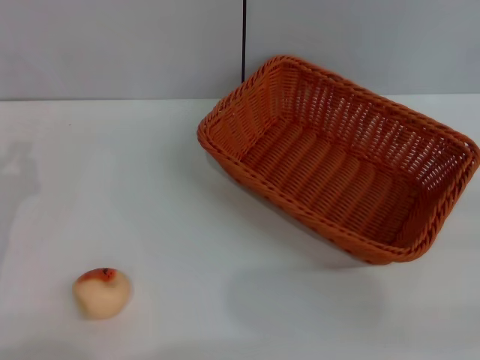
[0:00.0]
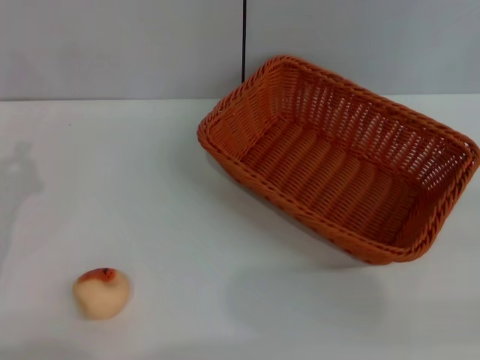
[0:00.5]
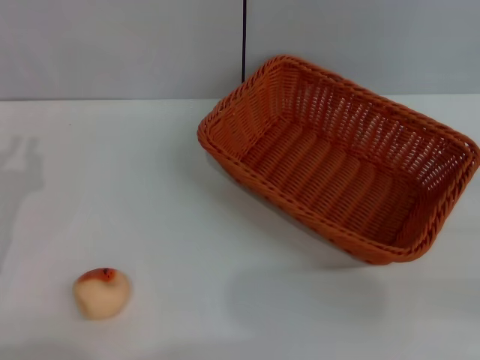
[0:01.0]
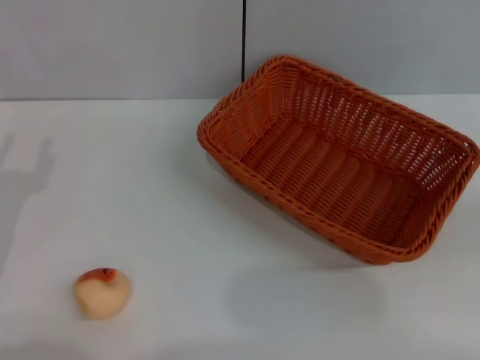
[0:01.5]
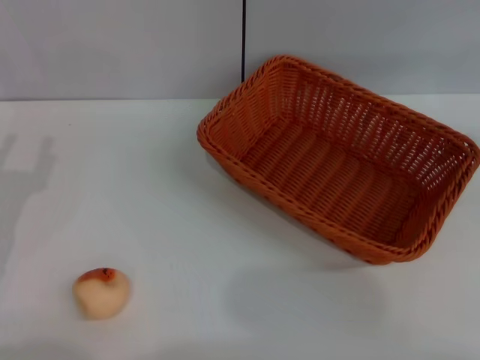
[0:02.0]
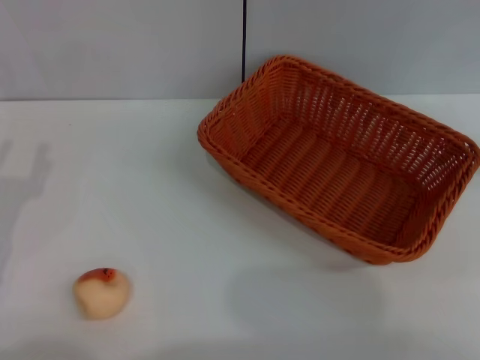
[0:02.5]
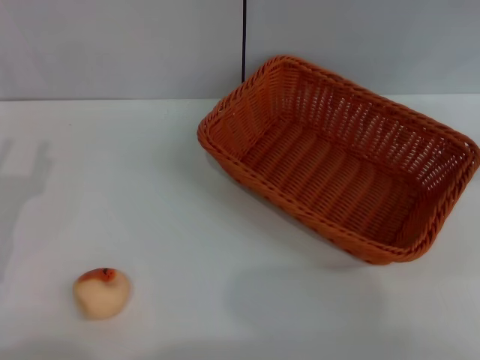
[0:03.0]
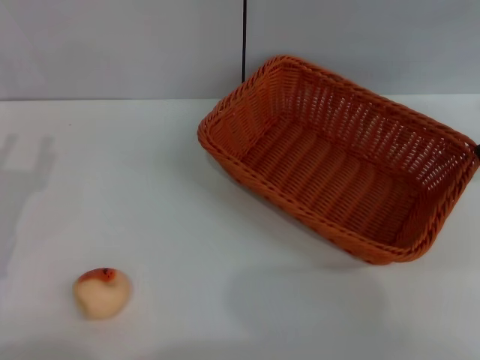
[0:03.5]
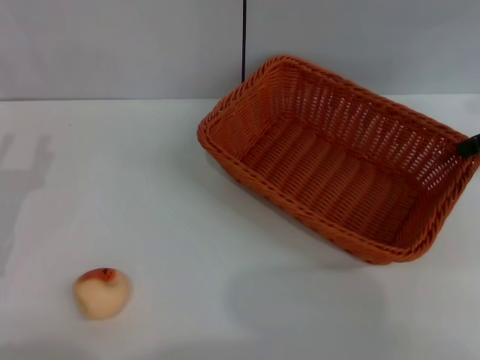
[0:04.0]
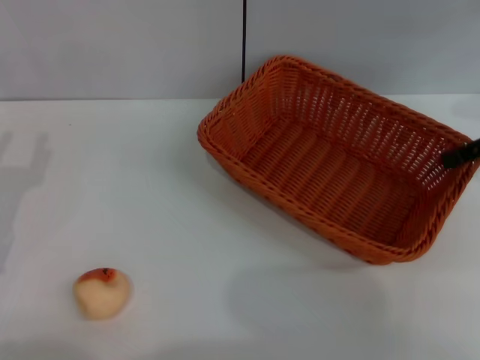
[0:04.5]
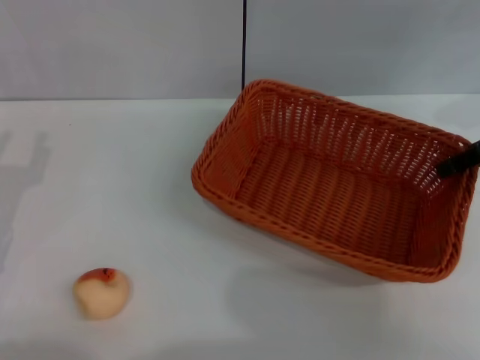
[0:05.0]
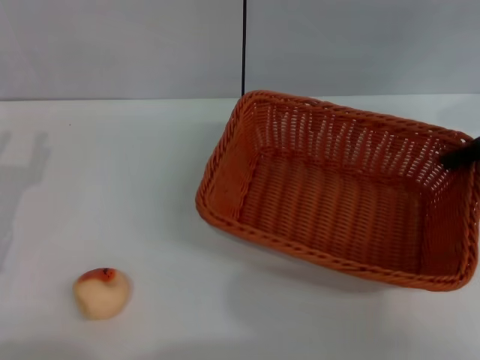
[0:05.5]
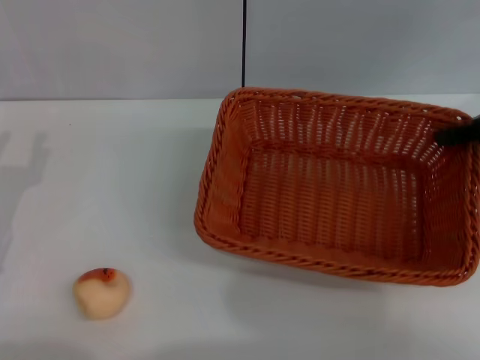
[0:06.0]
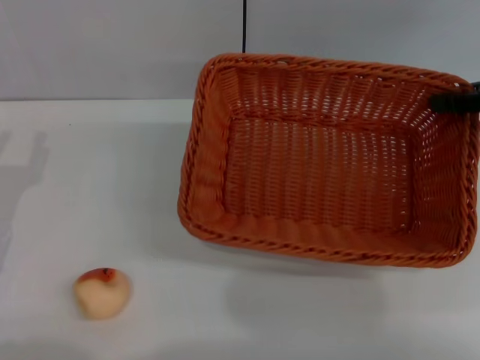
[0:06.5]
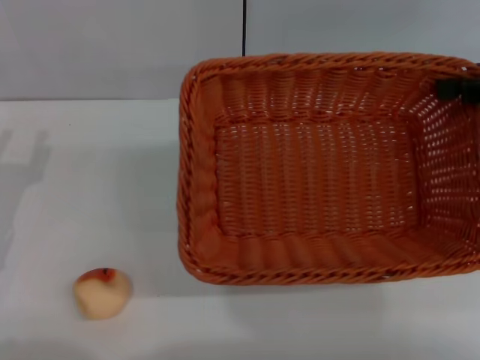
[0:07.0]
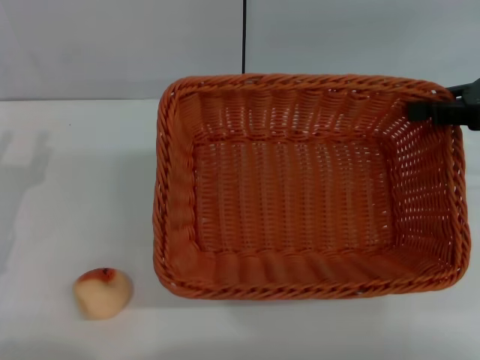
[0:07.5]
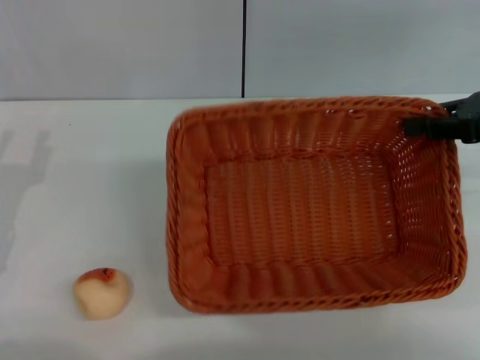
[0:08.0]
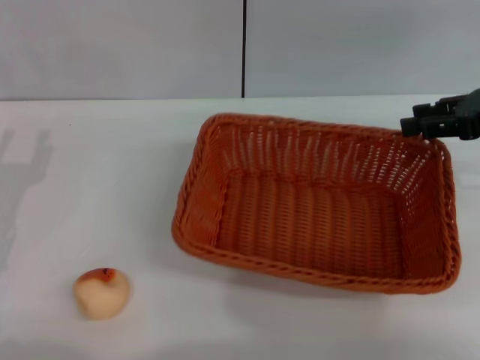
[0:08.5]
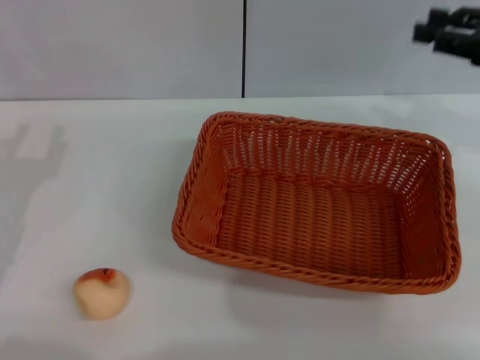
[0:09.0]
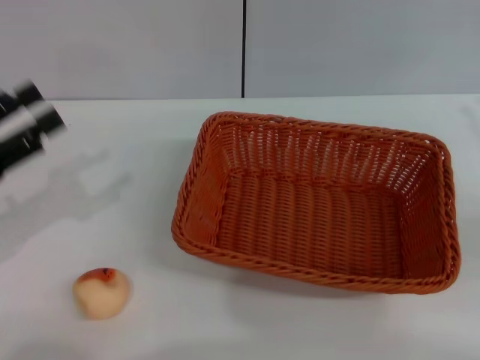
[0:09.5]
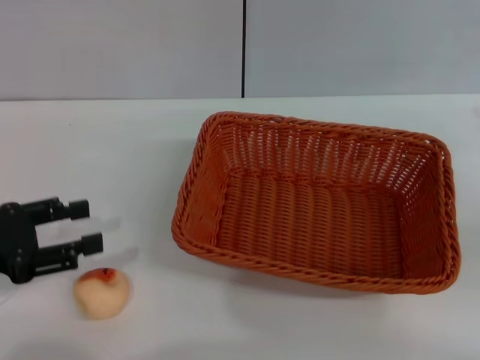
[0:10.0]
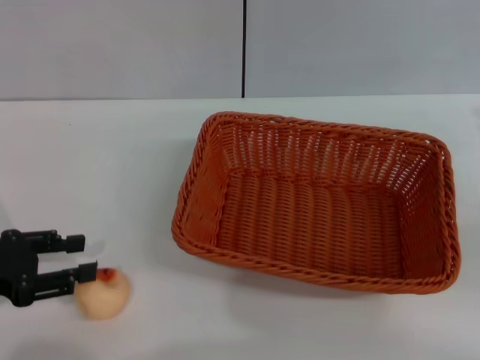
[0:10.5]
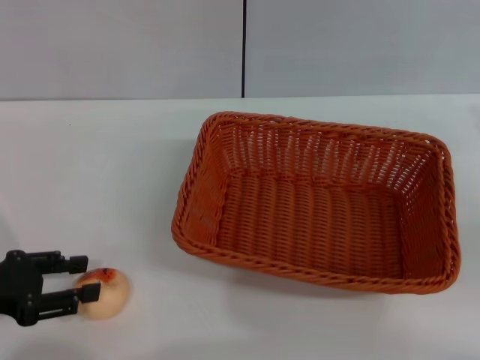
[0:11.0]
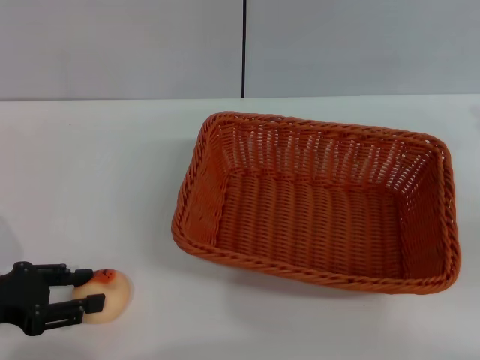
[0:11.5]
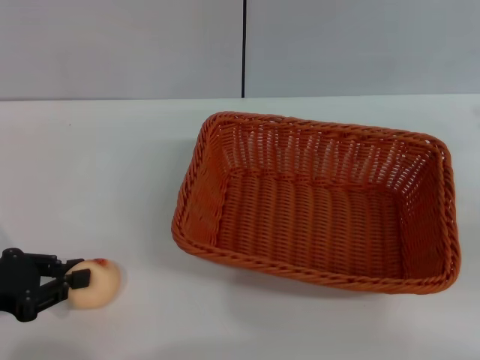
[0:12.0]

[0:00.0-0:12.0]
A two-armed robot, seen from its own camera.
Step, 0:00.0 to 0:08.5: Move the basket to the center of view with the right gripper.
0:04.0 to 0:06.0: The right gripper closes.
0:08.0 to 0:10.0: The right gripper heads backward, to the right and downward, covering approximately 10 cm, and opens. Meanwhile the left gripper ends up approximately 5 cm from where it was.
0:10.0 to 0:12.0: There are only small adjustments of the grippers.

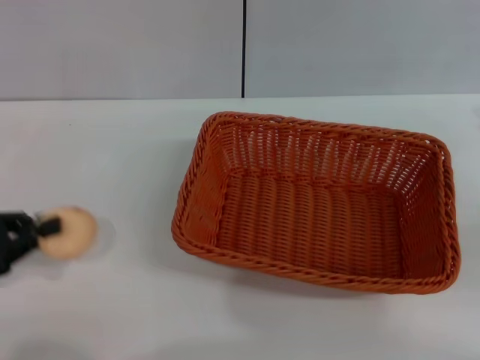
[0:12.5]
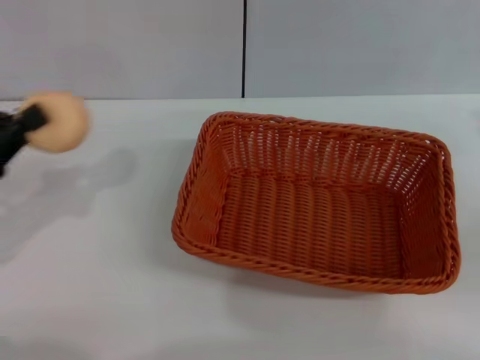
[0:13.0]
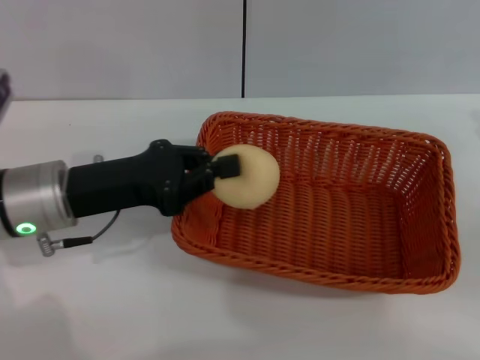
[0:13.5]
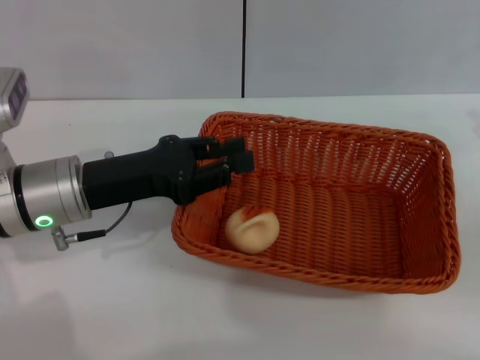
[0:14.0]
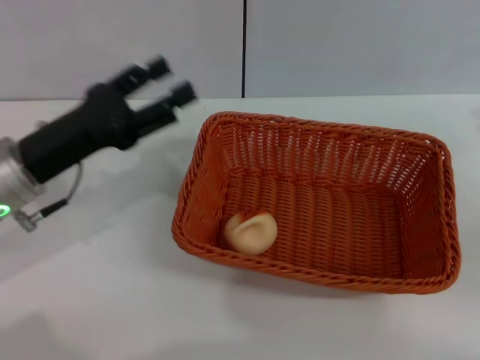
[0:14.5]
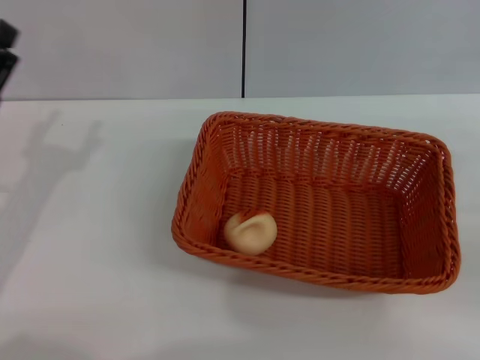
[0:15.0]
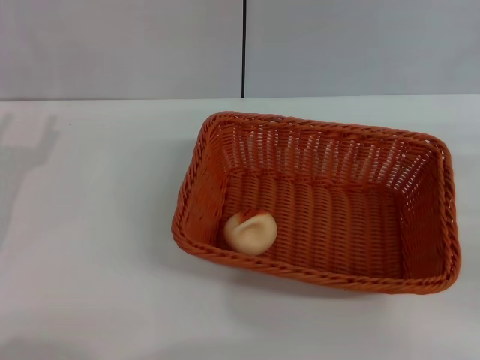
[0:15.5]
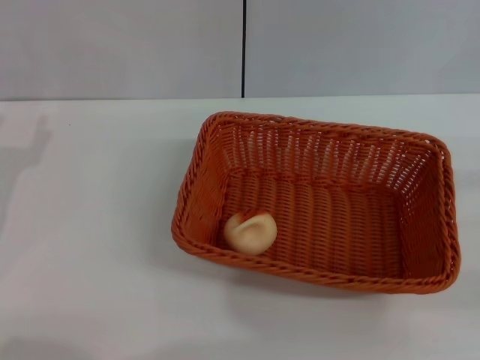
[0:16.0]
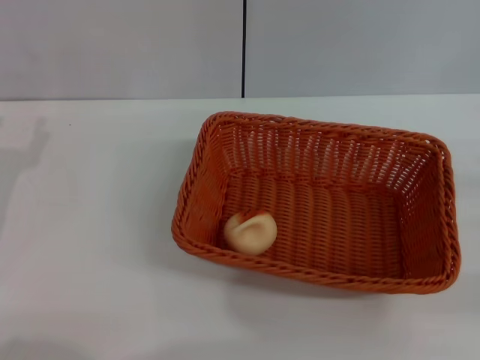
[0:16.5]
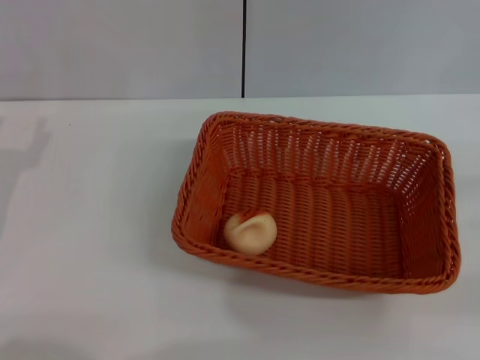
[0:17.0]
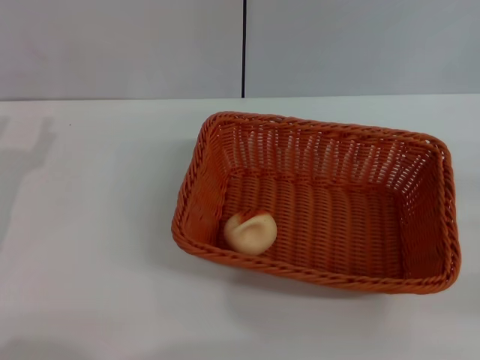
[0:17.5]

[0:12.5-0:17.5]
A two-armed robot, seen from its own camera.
Step, 0:12.5 to 0:14.5: Place the egg yolk pastry into the basket with the left gripper.
0:12.5 to 0:15.0: The left gripper travels to the right by roughly 5 cm, and opens.

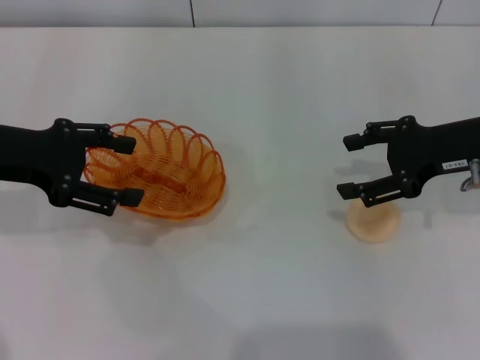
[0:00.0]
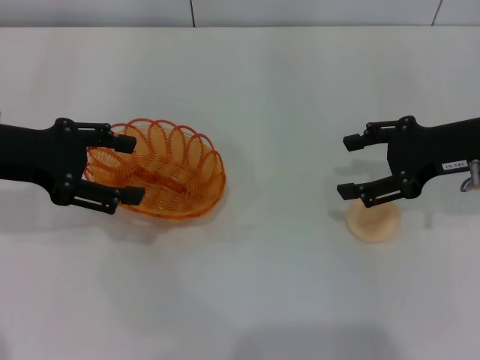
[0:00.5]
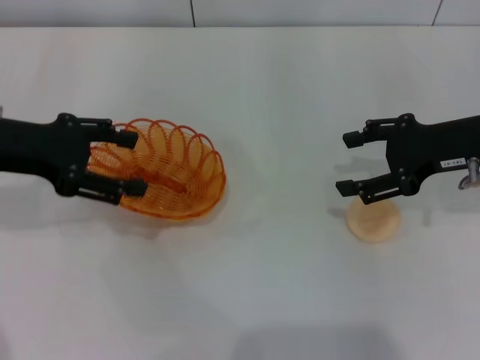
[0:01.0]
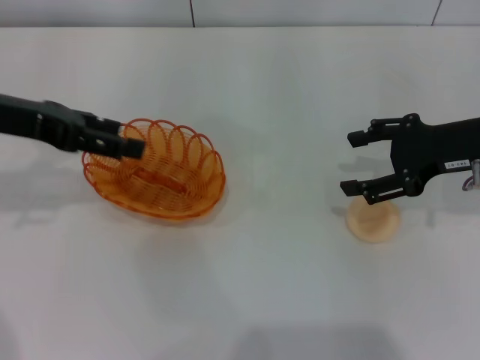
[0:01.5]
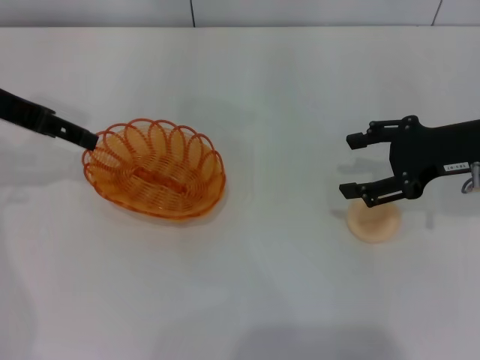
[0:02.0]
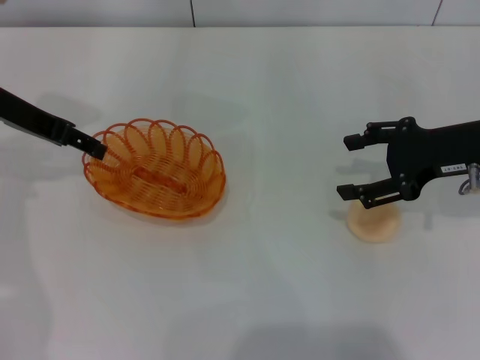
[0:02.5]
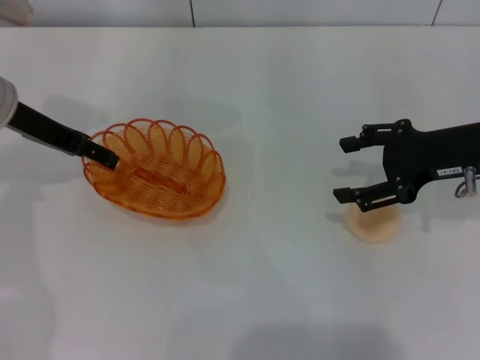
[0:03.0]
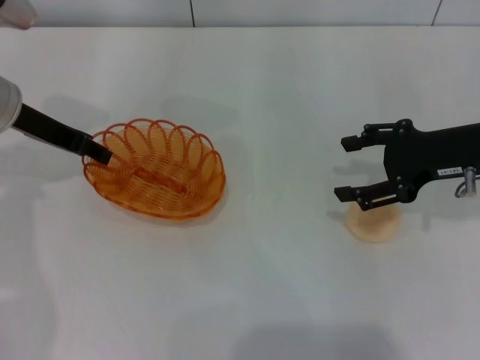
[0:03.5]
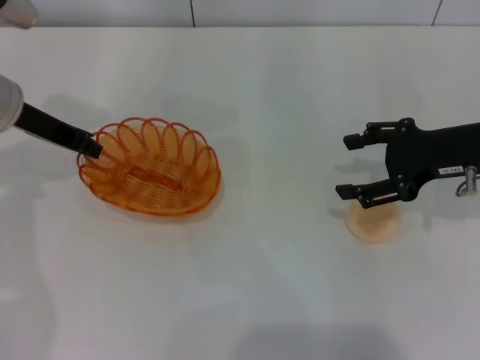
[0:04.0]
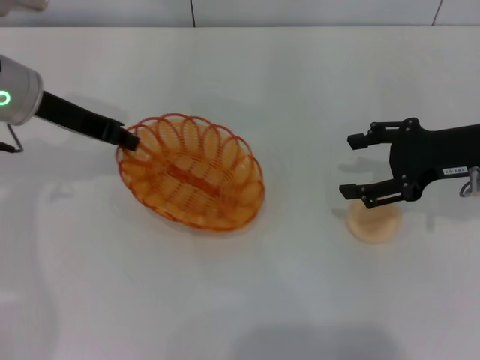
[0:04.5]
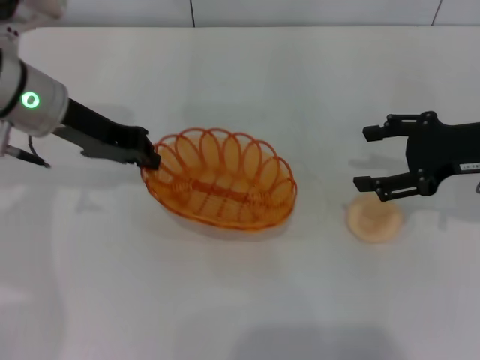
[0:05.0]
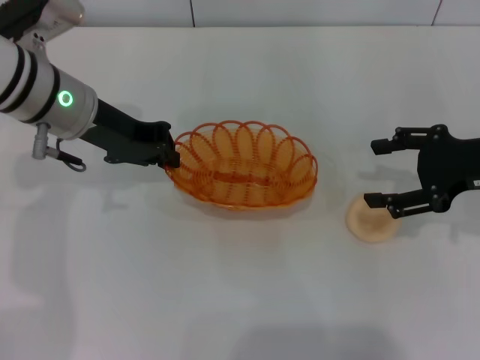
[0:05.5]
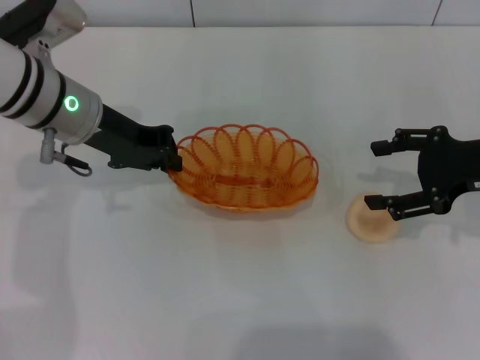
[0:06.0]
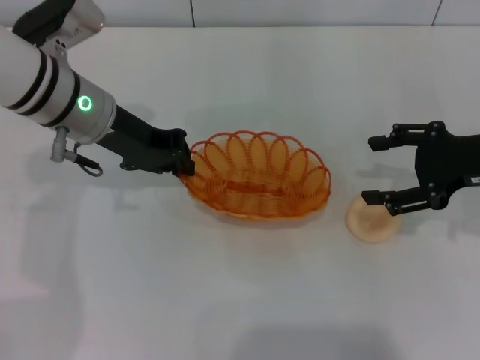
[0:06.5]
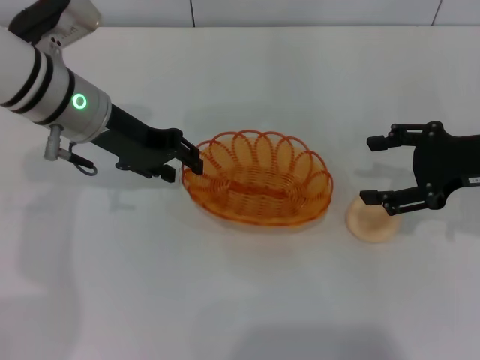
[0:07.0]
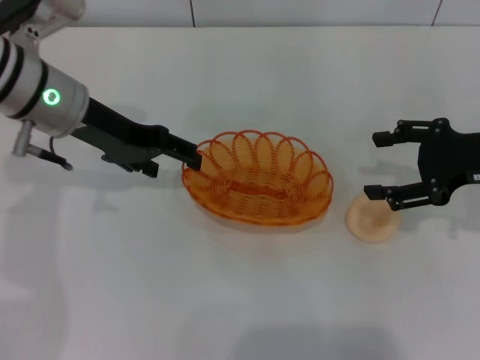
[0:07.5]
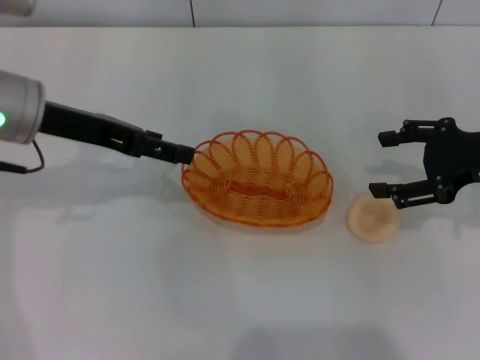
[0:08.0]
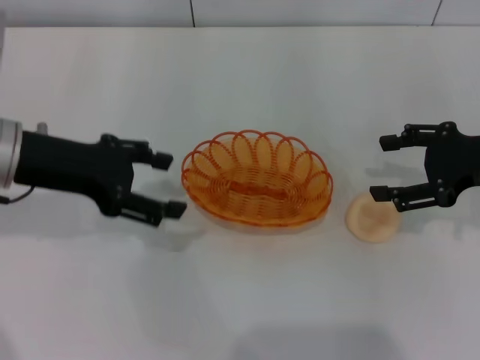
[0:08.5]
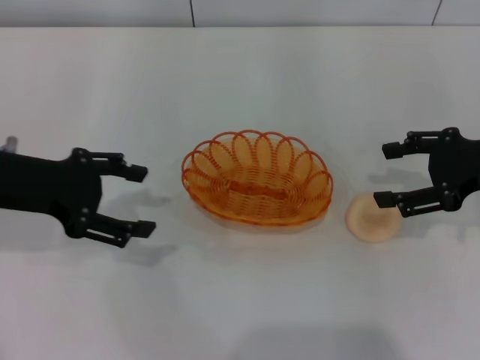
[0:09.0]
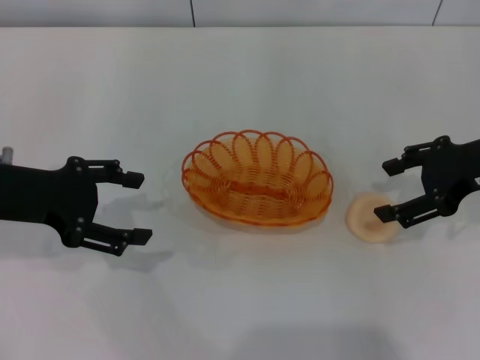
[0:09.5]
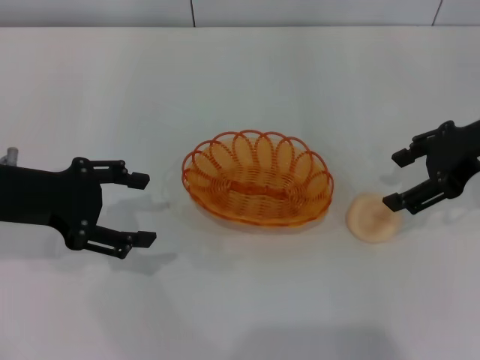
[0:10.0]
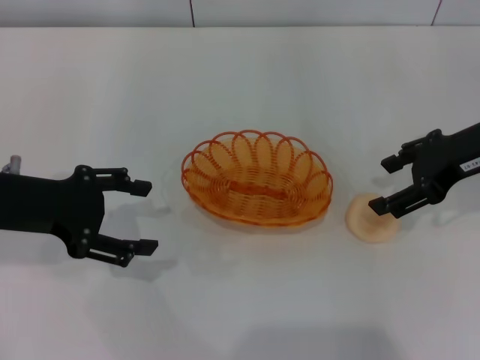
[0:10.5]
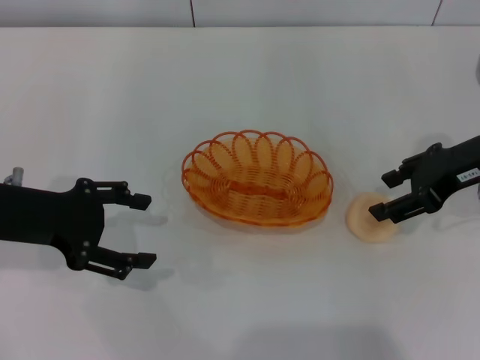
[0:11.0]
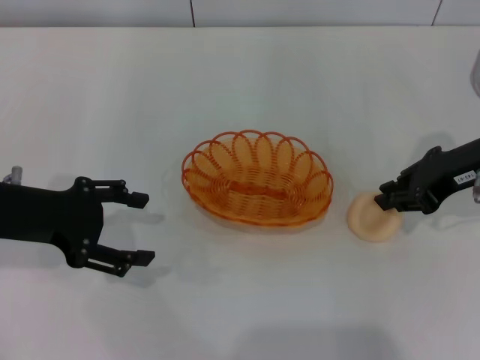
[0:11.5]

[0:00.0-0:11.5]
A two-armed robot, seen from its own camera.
Step, 0:00.0 to 0:04.0: Pick up the basket with the left gripper.
Step, 0:04.5 to 0:08.0: Place the basket in the center of view with the left gripper.
0:00.0 to 0:02.0: The left gripper moves forward, approximately 5 cm.
0:02.0 to 0:04.0: The left gripper shifts roughly 5 cm downward, and closes its fingers.
0:04.0 to 0:06.0: The left gripper is displaced to the right by roughly 5 cm.
0:06.0 to 0:07.5: The left gripper opens.
0:07.5 to 0:09.5: The left gripper moves backward and to the left, some 10 cm.
0:09.5 to 0:11.5: The right gripper closes up.
